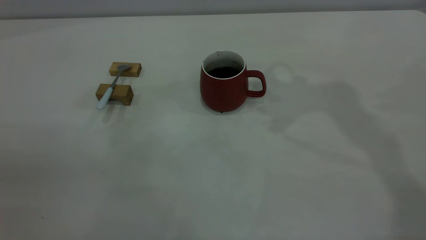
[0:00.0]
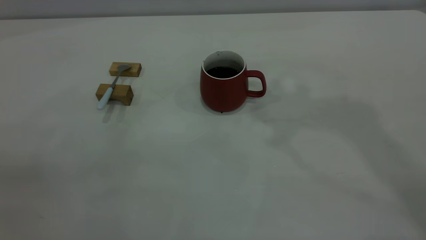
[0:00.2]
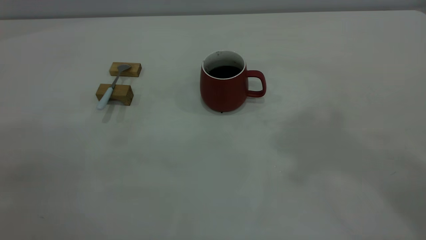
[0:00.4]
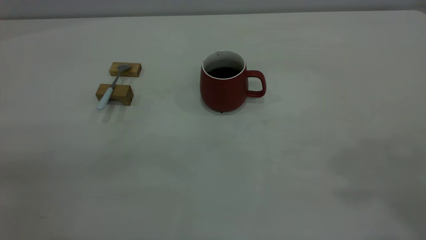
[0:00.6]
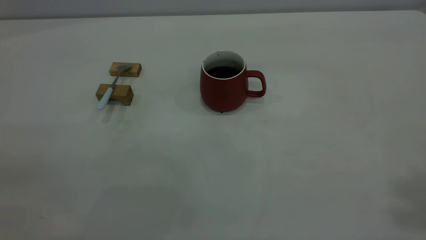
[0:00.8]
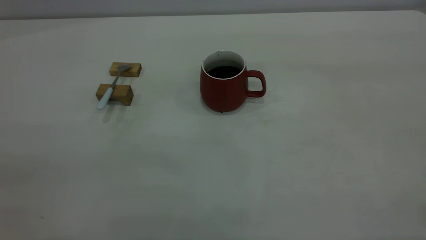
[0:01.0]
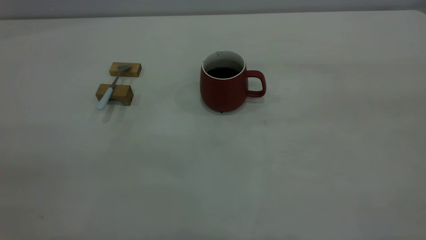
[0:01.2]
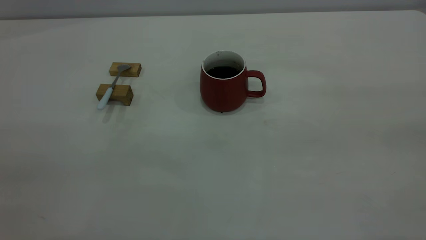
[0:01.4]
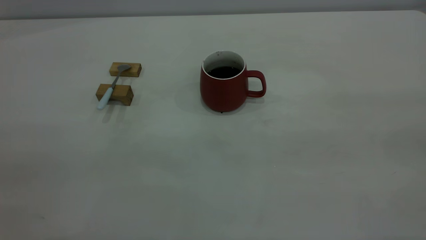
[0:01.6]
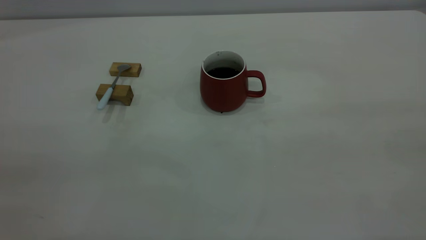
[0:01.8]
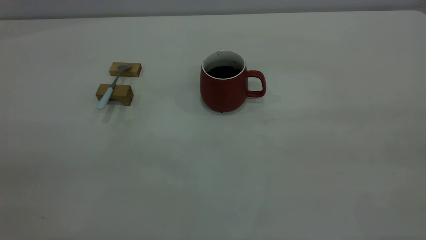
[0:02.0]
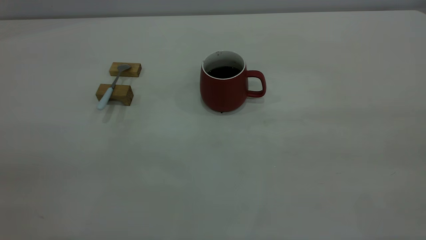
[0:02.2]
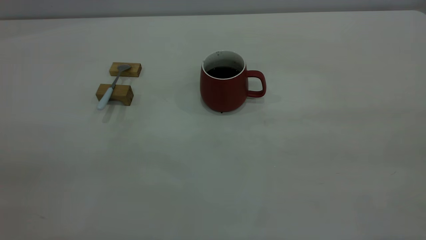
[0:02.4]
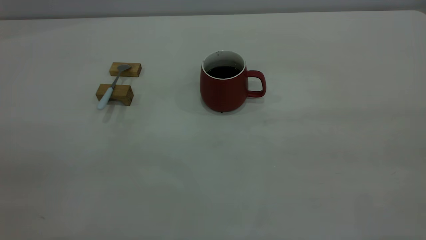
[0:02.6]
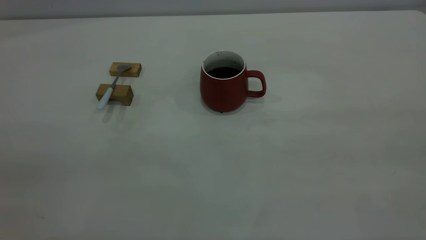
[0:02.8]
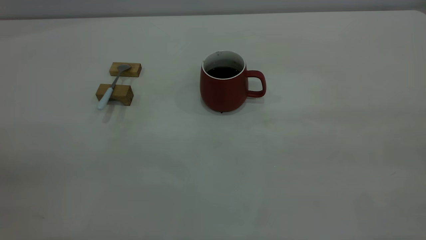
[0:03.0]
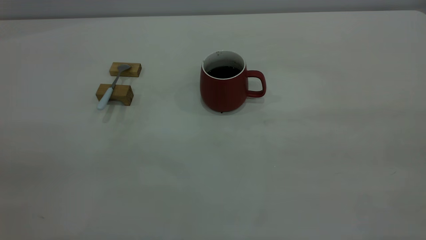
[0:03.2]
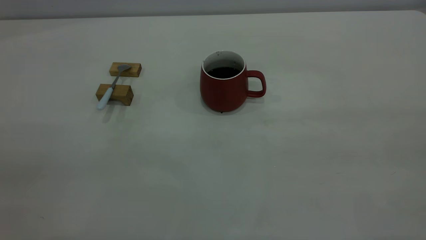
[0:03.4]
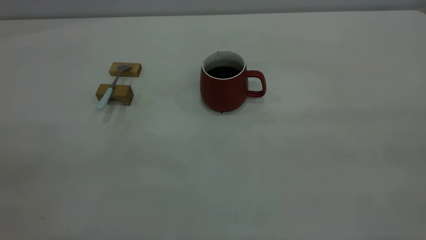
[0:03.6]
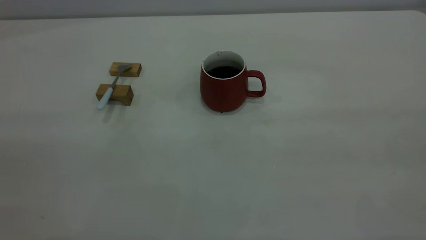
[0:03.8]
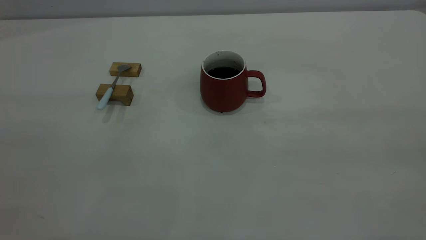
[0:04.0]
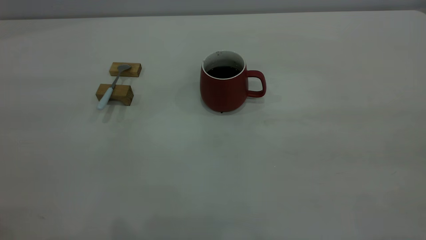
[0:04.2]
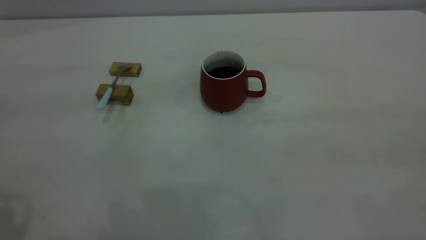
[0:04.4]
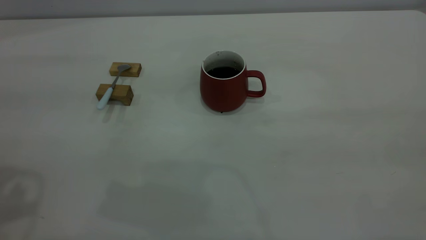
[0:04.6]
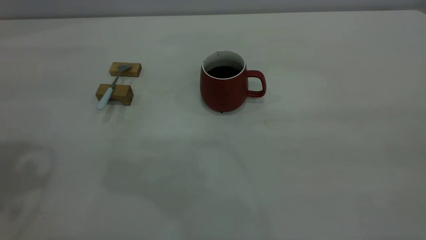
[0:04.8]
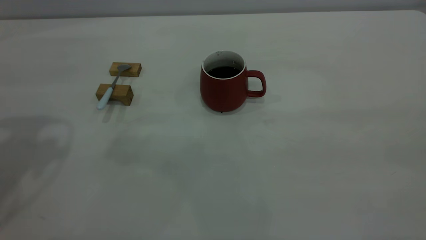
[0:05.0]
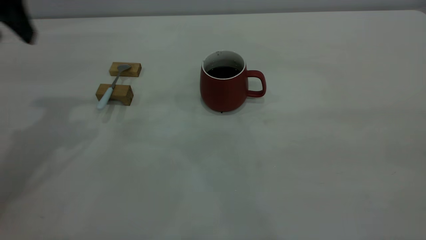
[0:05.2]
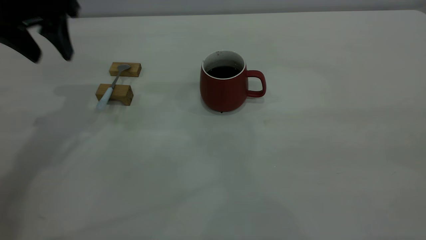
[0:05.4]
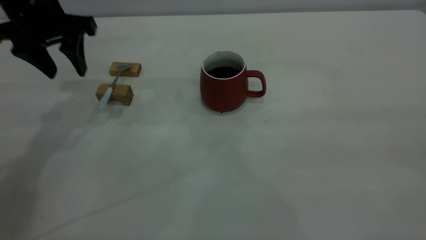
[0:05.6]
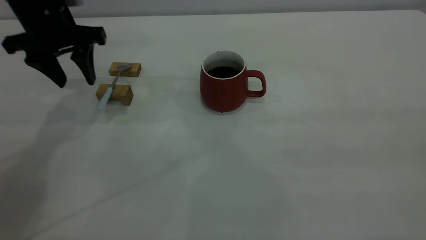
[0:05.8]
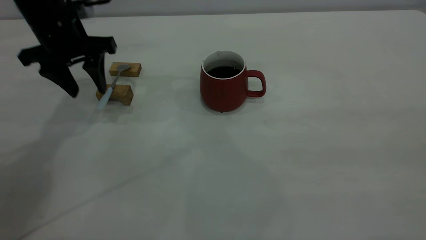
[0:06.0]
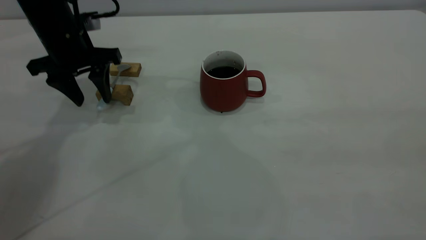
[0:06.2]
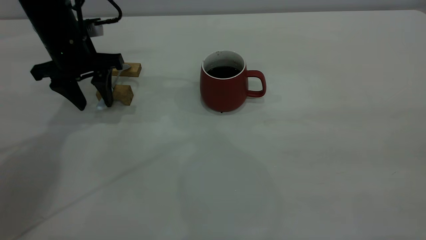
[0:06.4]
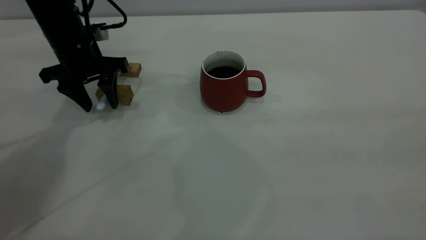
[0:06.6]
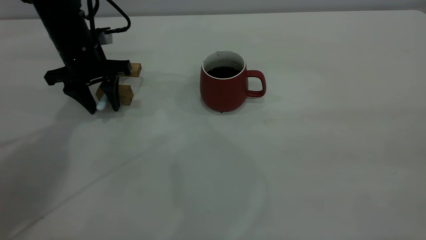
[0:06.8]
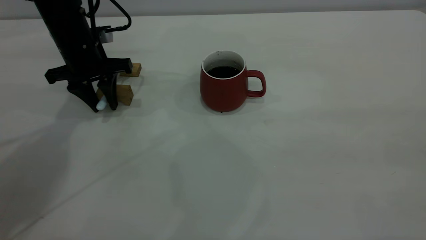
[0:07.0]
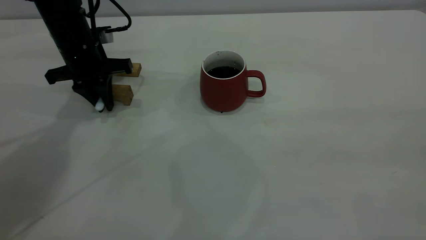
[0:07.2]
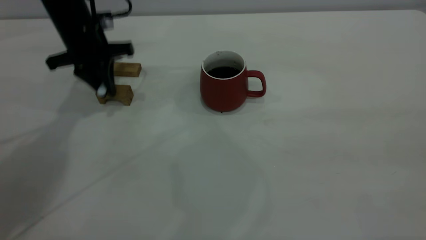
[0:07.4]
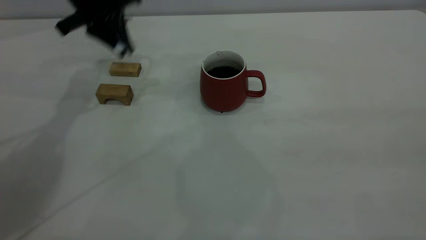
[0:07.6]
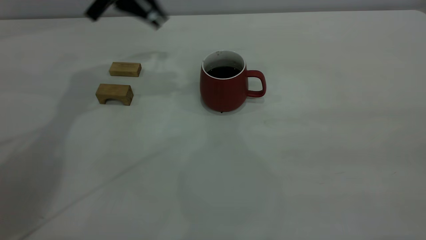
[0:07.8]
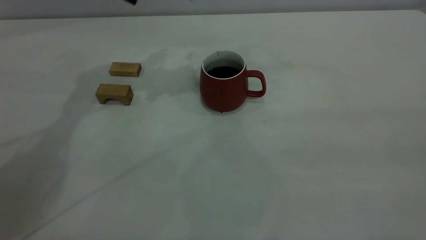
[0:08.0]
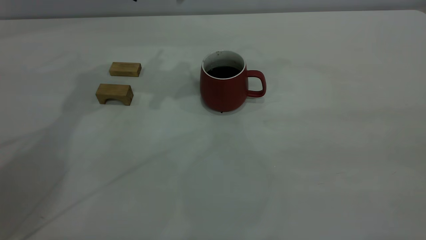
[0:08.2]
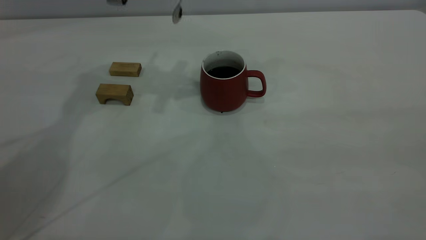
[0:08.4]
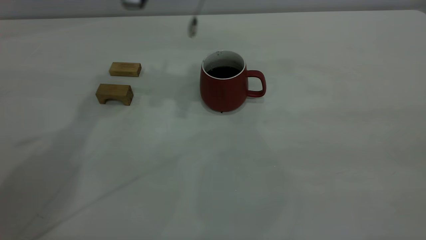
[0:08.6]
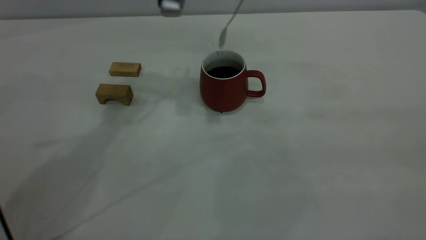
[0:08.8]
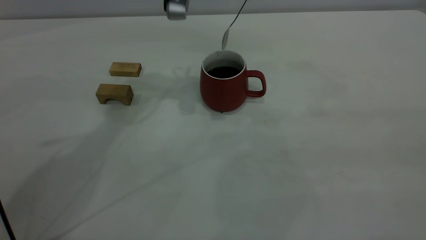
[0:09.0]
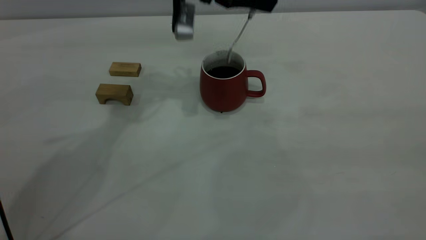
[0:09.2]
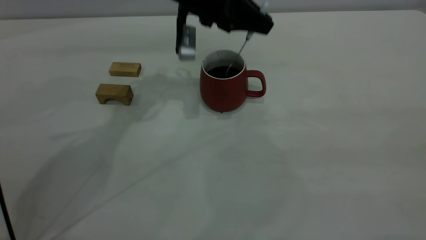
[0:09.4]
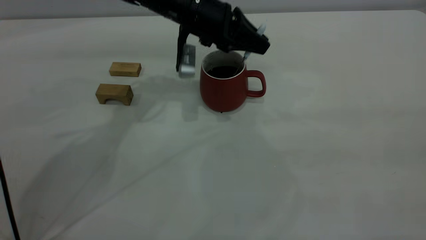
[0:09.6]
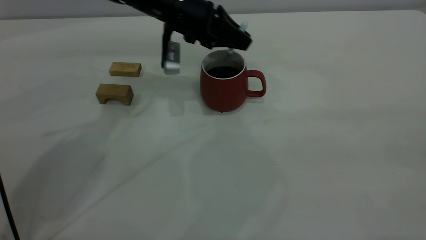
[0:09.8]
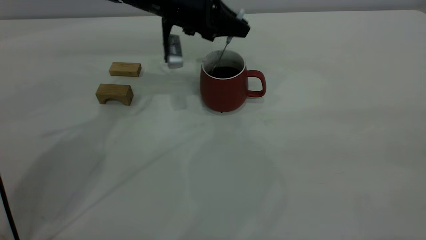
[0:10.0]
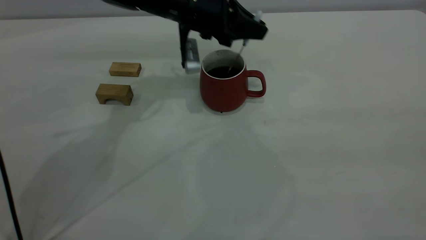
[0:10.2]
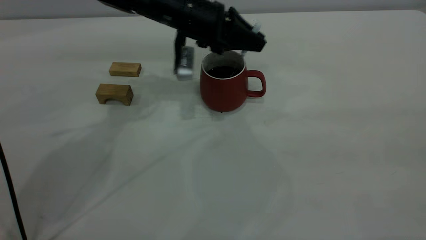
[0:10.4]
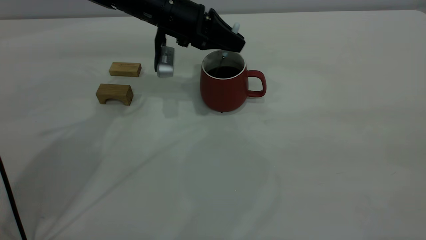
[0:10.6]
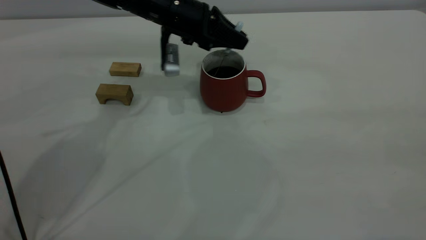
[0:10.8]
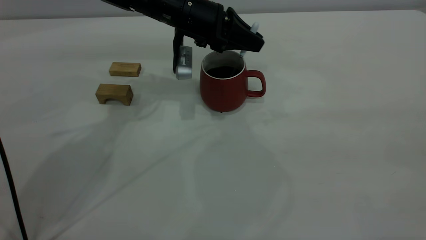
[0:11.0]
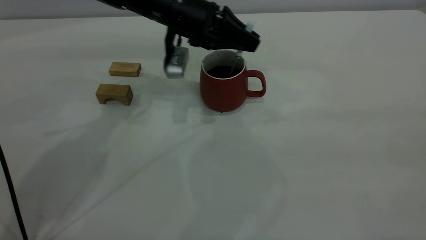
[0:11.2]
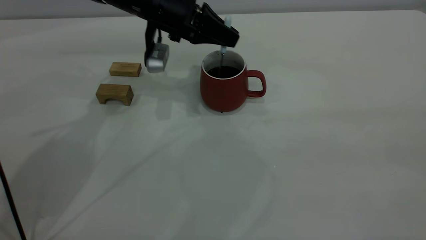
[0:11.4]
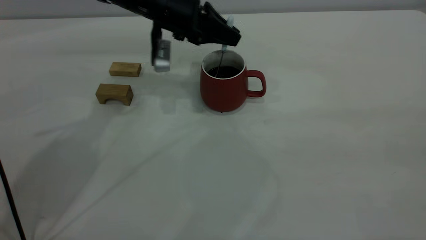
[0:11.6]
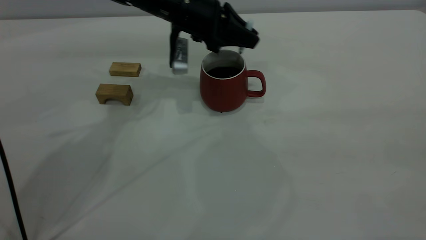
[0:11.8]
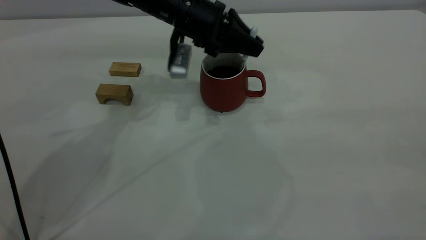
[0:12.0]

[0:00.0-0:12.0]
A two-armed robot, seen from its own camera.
Step, 0:00.0 to 0:07.4: Pick up the spoon.
0:04.4 to 0:06.0: The left gripper is displaced forward and downward by some 35 cm.
0:06.0 to 0:07.6: The left gripper moves forward, approximately 5 cm, and closes its fingers.
0:07.6 to 0:09.0: The left gripper heads to the right, covering roughly 15 cm.
0:09.0 to 0:10.4: The left gripper travels downward by approximately 10 cm.
0:10.4 to 0:12.0: The grippers make only small movements.

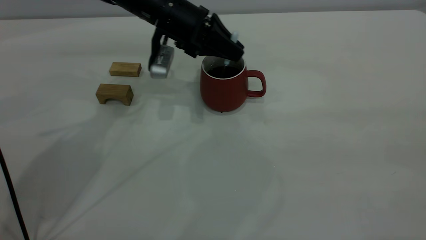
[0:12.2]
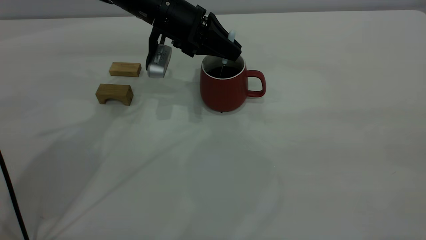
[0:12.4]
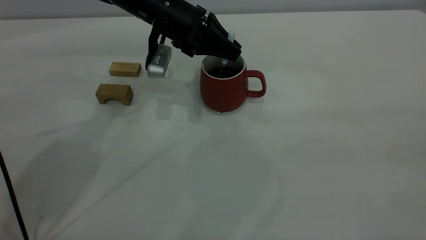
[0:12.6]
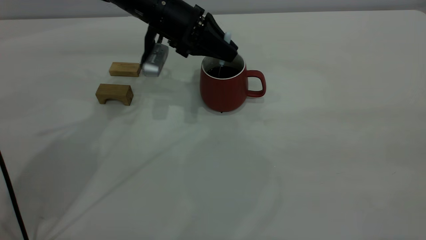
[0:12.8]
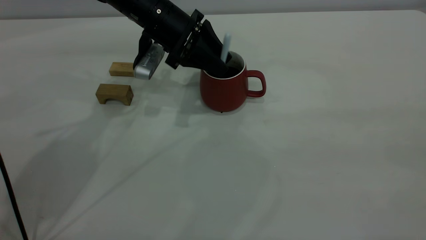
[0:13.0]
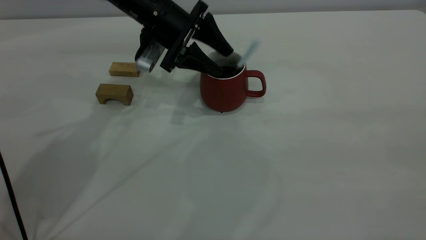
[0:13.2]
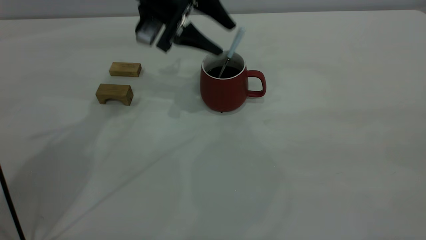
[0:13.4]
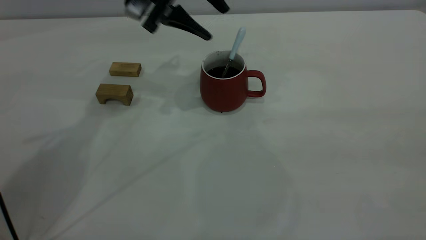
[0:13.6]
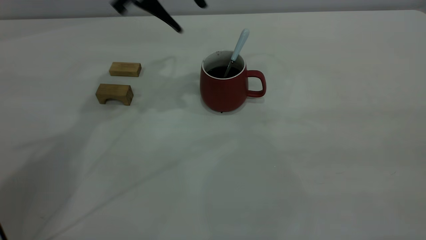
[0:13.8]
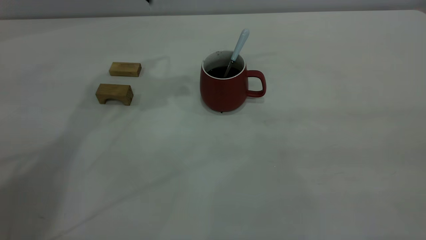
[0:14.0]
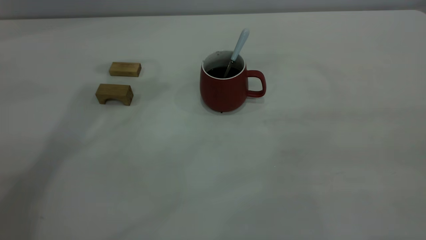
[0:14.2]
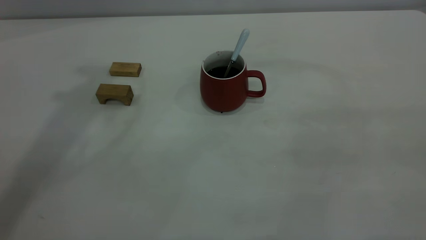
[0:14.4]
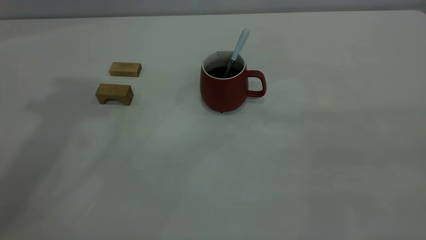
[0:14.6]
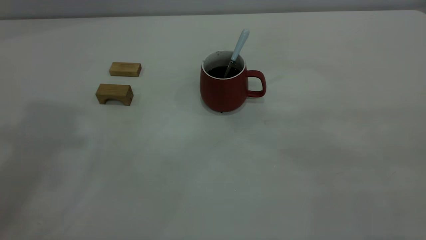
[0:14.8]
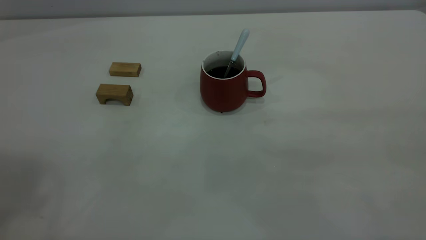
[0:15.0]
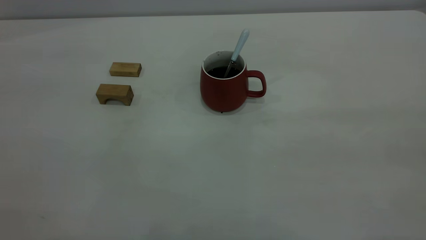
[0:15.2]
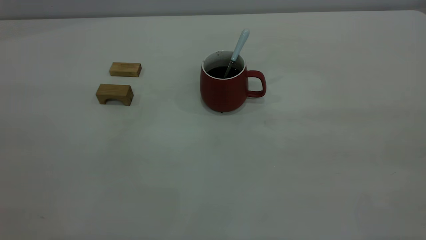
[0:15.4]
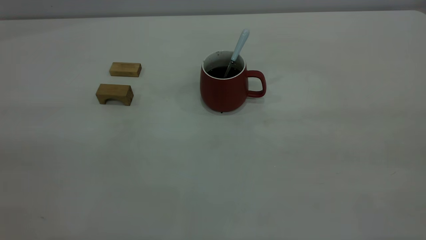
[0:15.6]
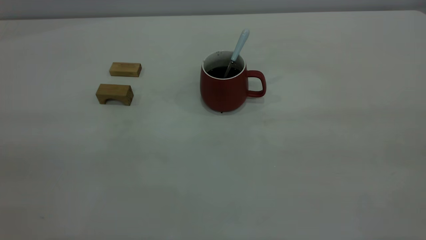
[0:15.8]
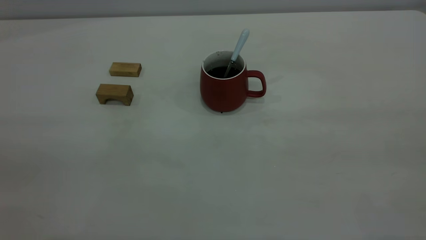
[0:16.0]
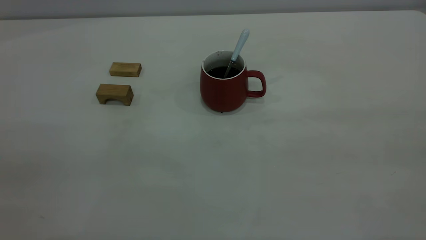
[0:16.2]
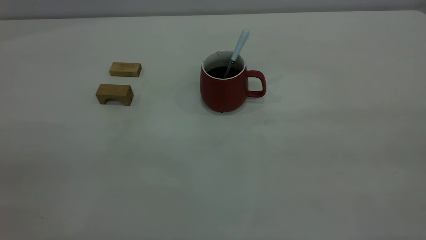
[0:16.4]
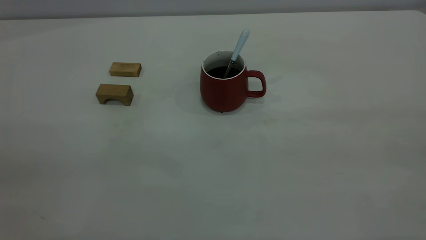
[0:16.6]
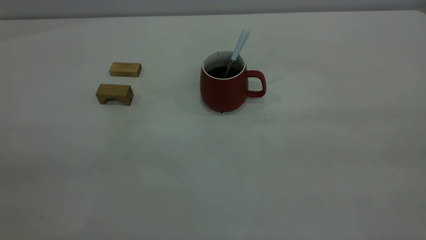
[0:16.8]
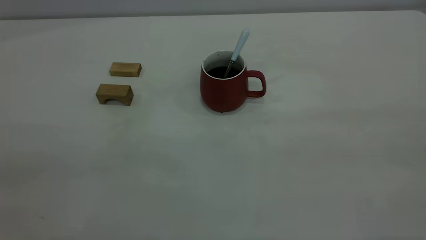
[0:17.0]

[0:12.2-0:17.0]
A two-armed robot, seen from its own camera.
0:12.2 to 0:13.8: The left gripper travels upward by about 15 cm, and opens.
0:13.8 to 0:15.4: The left gripper moves backward and to the left, about 40 cm.
